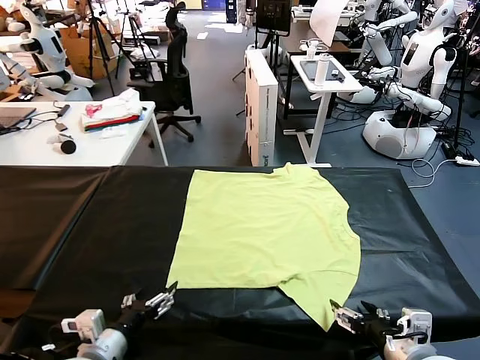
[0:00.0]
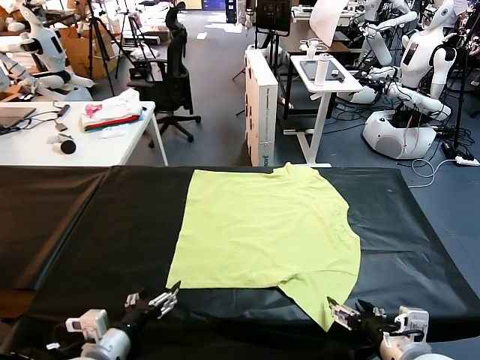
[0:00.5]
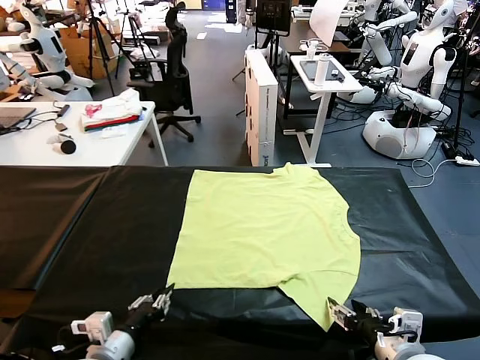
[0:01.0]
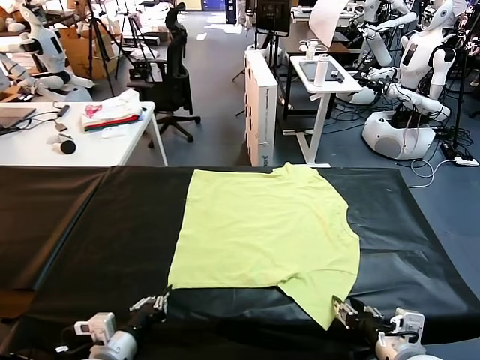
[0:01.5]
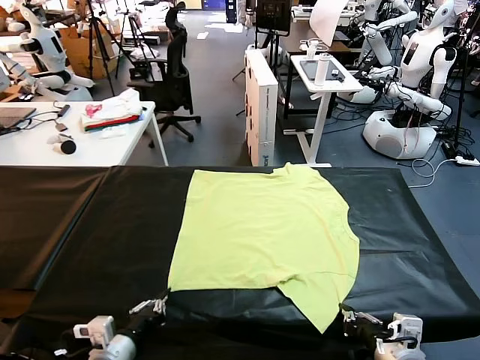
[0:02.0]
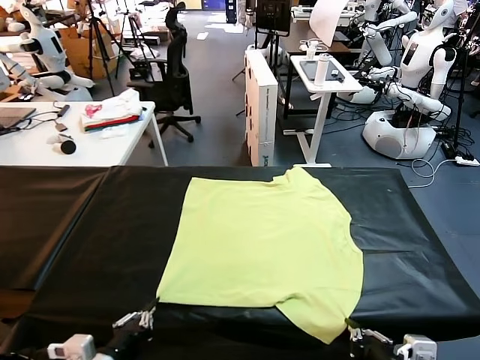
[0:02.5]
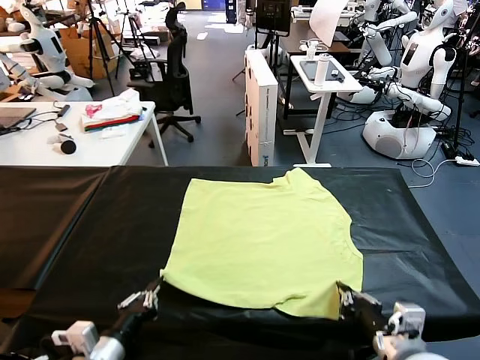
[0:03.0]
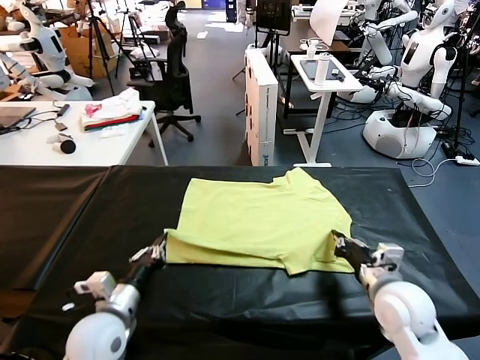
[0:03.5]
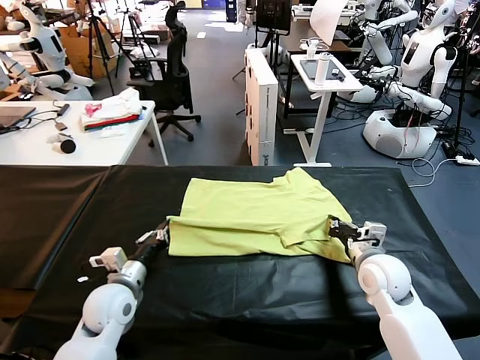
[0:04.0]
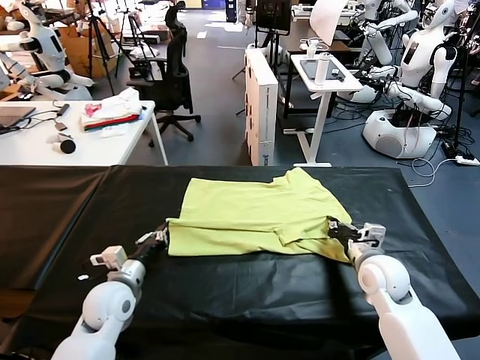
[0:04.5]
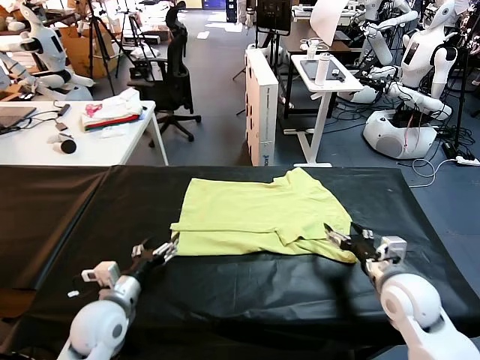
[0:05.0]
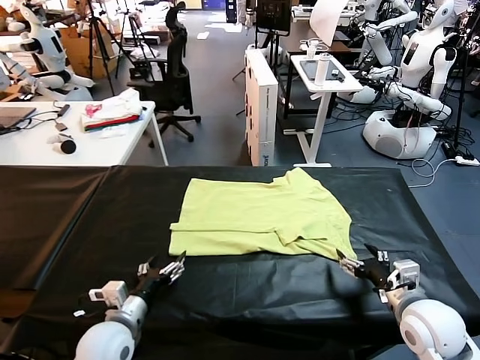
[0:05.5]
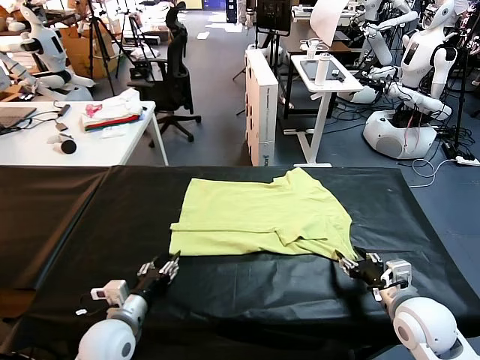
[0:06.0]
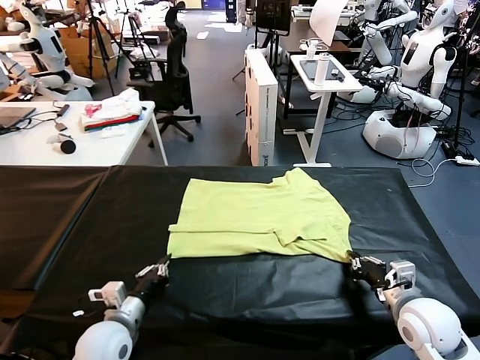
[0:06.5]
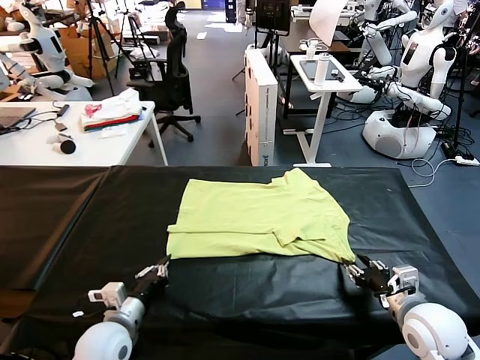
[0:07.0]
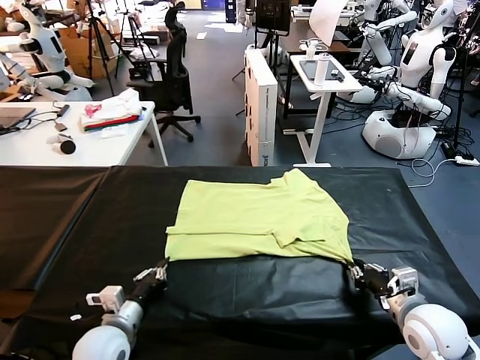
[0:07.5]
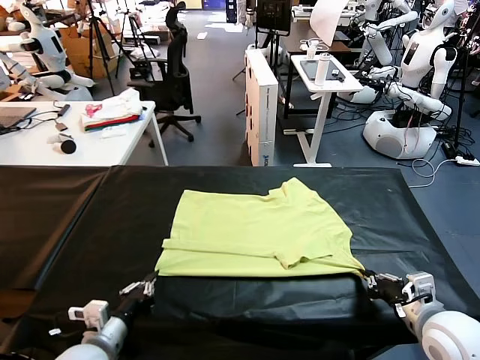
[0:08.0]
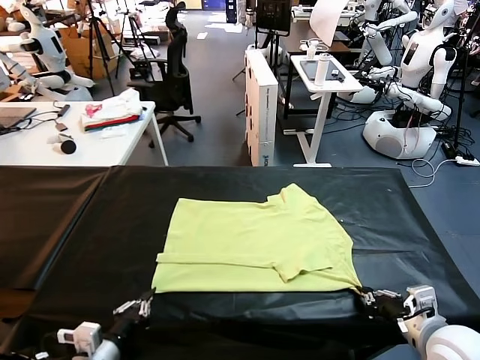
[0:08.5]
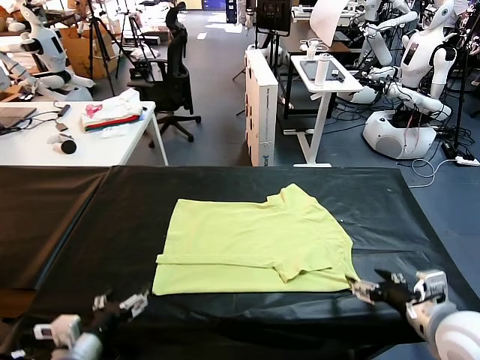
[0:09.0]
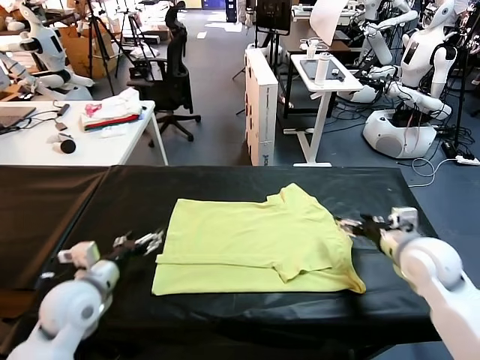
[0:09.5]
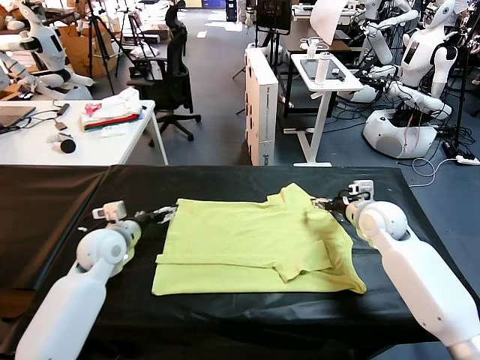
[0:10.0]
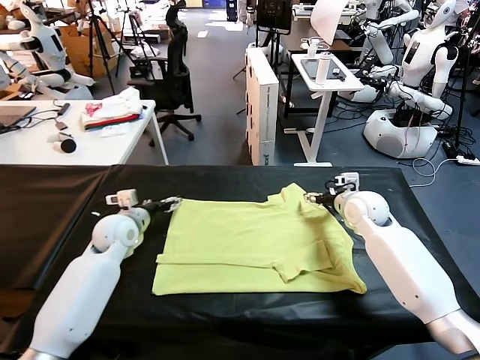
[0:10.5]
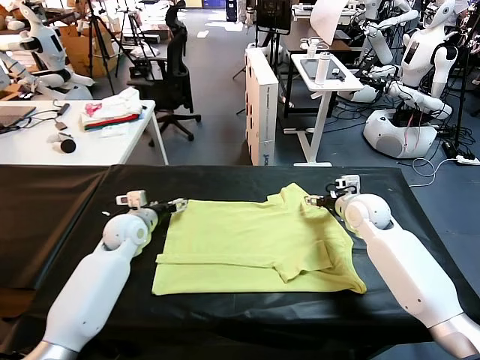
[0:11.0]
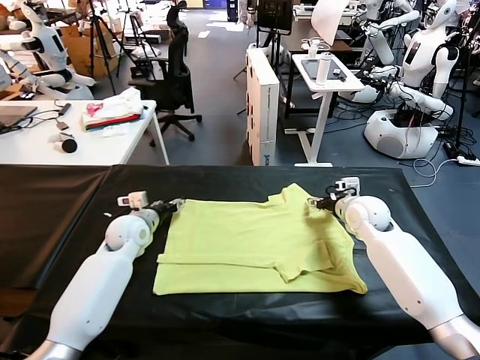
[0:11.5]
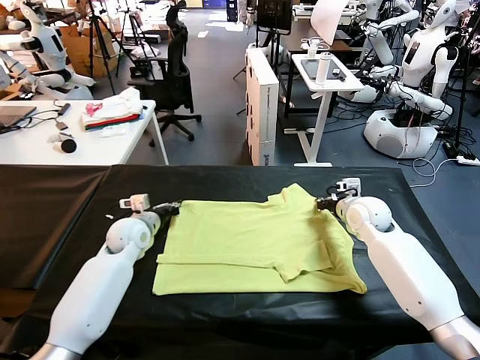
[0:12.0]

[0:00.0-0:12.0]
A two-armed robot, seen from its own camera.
Task of the whole recording: fold and organize the clothes.
Step, 0:00.0 to 0:02.0: use both grippers simultaneously to clamp the lower edge of the clothing fabric.
Step, 0:02.5 to 0:04.5: use both grippers to drag the lower edge of the fabric forward and fold it over the upper edge.
Step, 0:05.0 to 0:08.5: Drag the clothes downward with both gripper.
0:02.0 to 0:04.0: The right gripper goes some 25 cm forward; the left gripper travels forward by about 15 cm.
0:04.0 to 0:06.0: Both grippers move backward, some 10 cm. The right gripper opens, then closes again. Meanwhile the left gripper opens, then closes once more.
0:06.0 to 0:08.0: Both grippers move backward, some 5 cm. The right gripper opens, then closes once more.
0:08.0 to 0:10.0: The two grippers go roughly 25 cm forward. The left gripper opens, while the right gripper opens up.
0:10.0 to 0:12.0: The right gripper closes its fingers; the left gripper goes some 5 cm forward, and closes up.

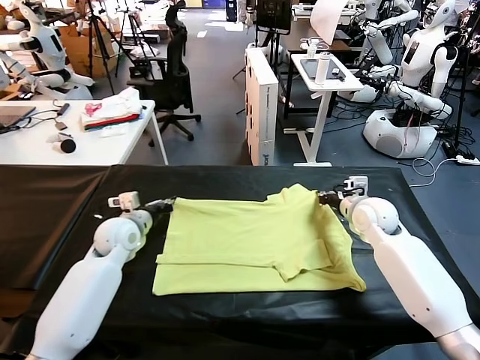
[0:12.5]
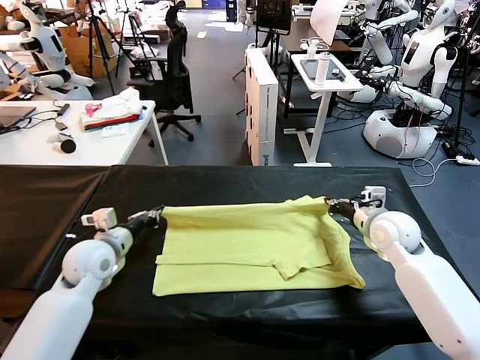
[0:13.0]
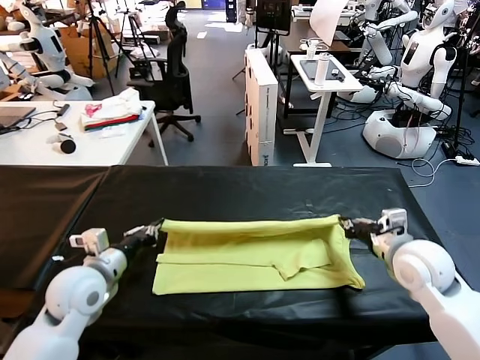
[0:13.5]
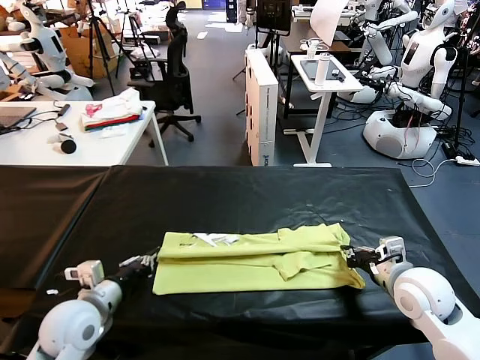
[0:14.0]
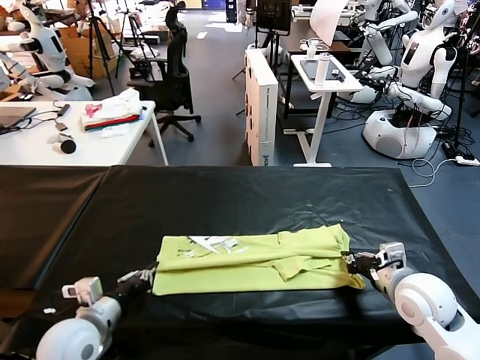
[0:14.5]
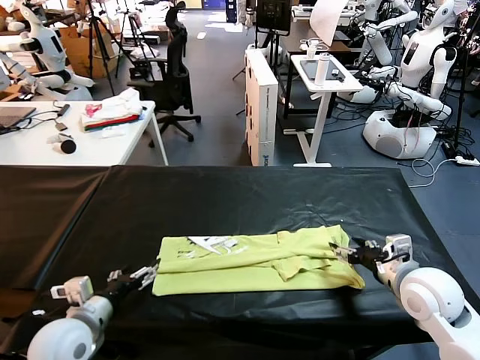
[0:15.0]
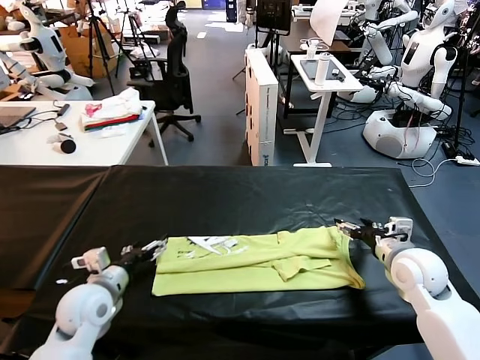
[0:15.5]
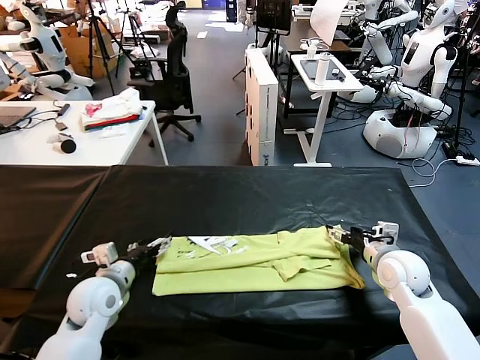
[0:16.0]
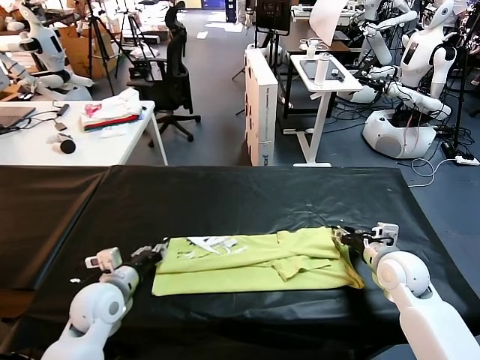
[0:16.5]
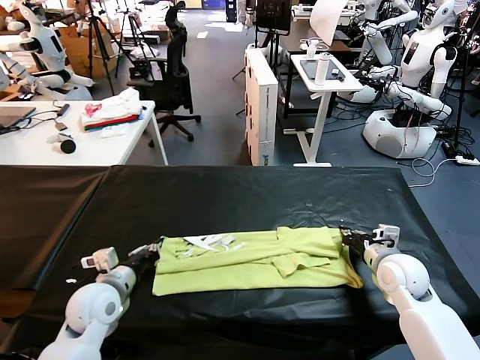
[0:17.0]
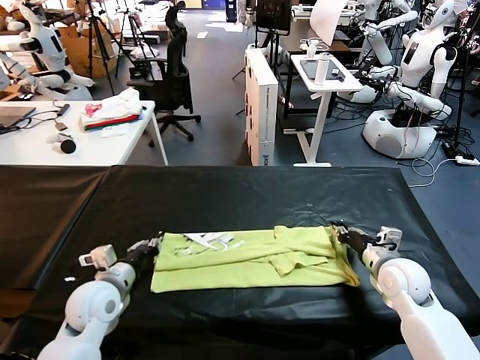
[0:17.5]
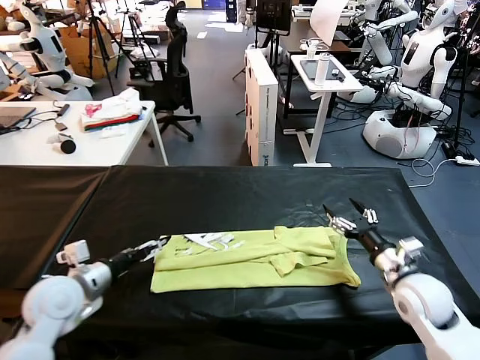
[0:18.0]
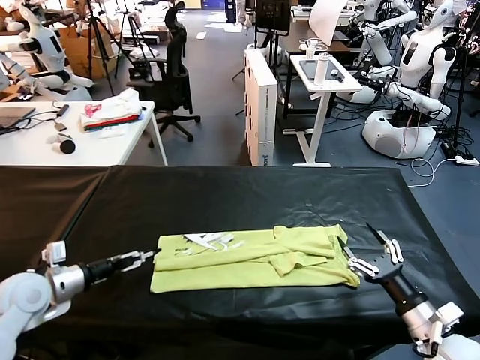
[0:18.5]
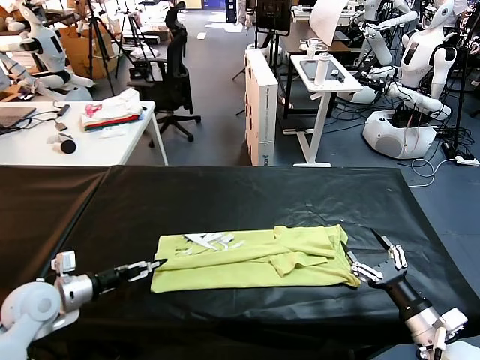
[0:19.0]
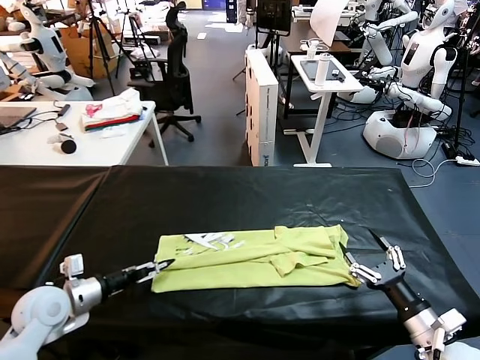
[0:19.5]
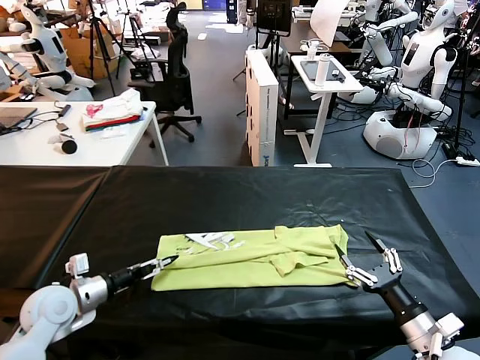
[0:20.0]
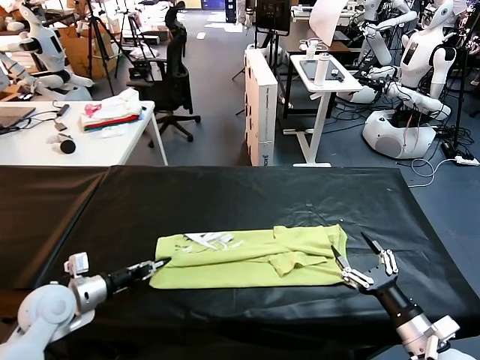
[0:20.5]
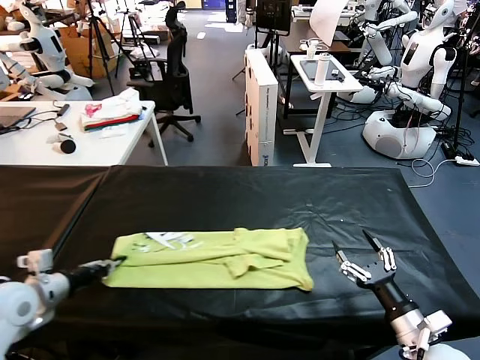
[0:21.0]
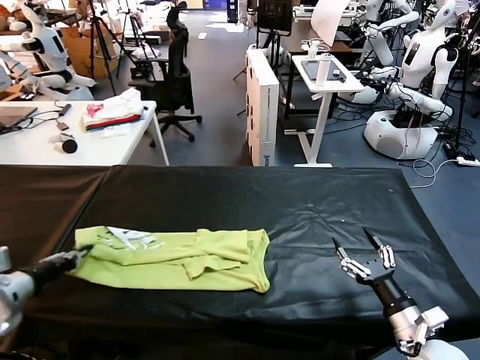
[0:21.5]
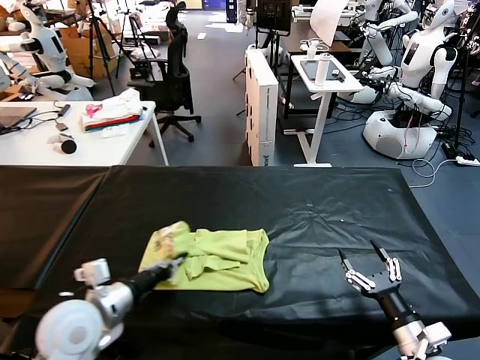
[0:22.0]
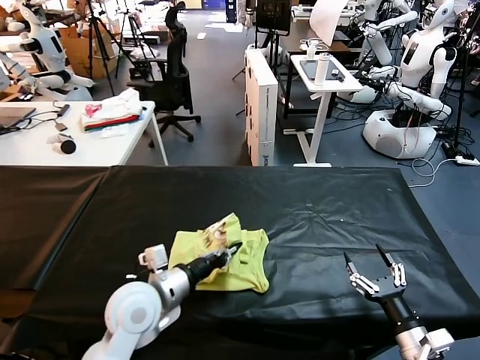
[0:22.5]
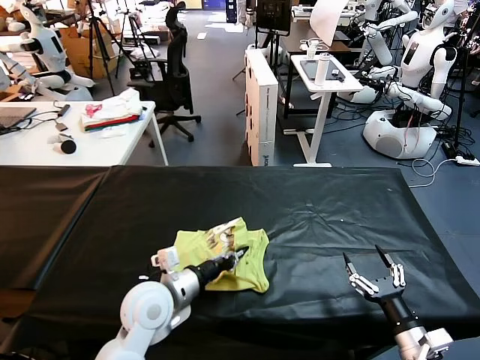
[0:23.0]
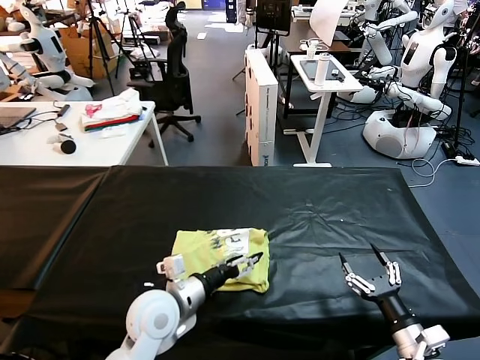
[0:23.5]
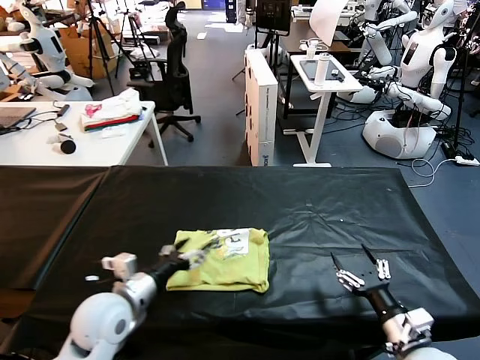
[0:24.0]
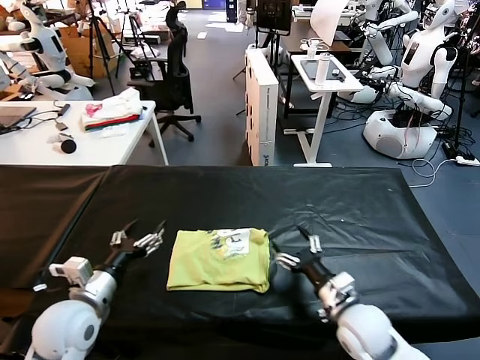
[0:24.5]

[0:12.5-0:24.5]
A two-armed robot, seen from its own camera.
Task of the whole recording: fold and organize the clothes.
Step, 0:12.5 to 0:15.0: use both grippers to drag the upper edge of the fabric backward and fold it over the lower edge.
Step, 0:15.5 to 0:20.0: use the left gripper to clamp the left edge of the fabric.
Step, 0:20.5 to 0:23.5: use the left gripper to drag the left edge of the fabric to the left and folds it over the right edge.
0:12.5 to 0:14.5: The grippers both shift backward by roughly 20 cm.
0:14.5 to 0:16.5: Both grippers travel together forward, about 10 cm. The right gripper opens, then closes once more, while the left gripper opens, then closes again.
0:16.5 to 0:18.5: The left gripper is displaced to the left and upward by approximately 15 cm, and opens up. Meanwhile the right gripper moves backward, approximately 15 cm, and opens.
0:18.5 to 0:20.5: The left gripper ends up about 5 cm from where it was, and closes.
0:20.5 to 0:22.5: The left gripper travels to the right by about 20 cm.
0:22.5 to 0:24.5: The left gripper shifts approximately 10 cm to the left, and opens up. The right gripper shifts roughly 15 cm to the left and forward.

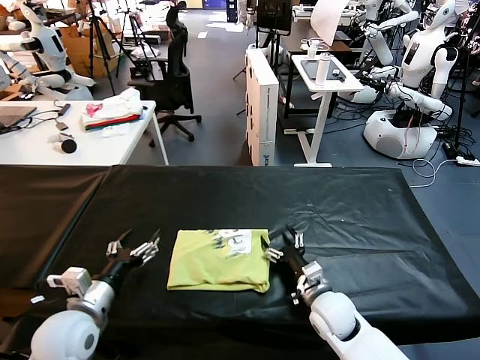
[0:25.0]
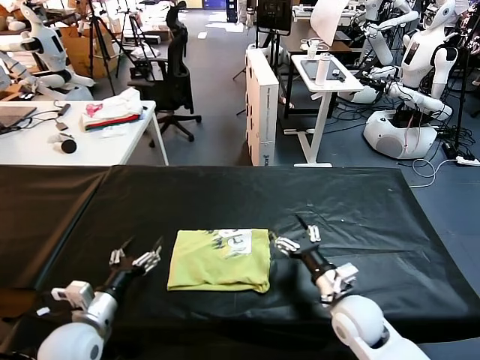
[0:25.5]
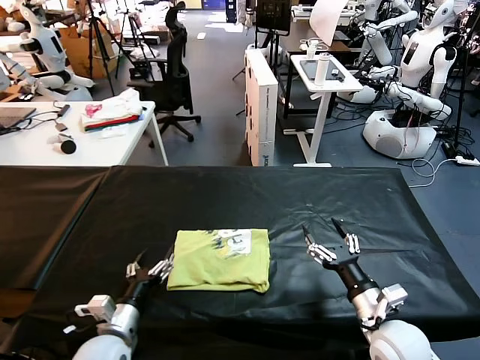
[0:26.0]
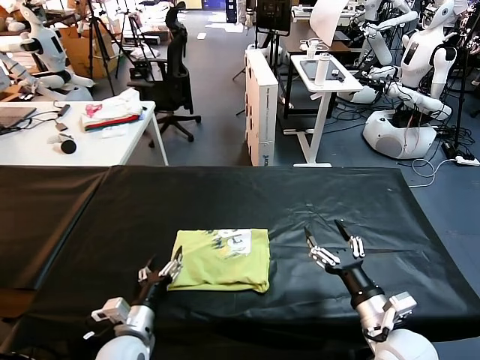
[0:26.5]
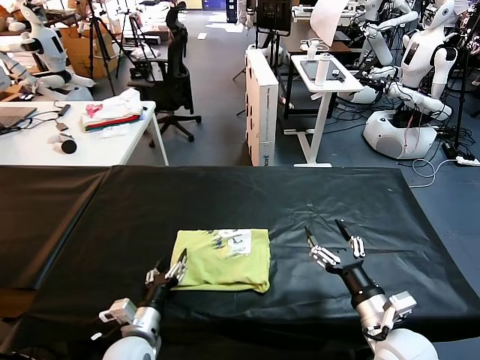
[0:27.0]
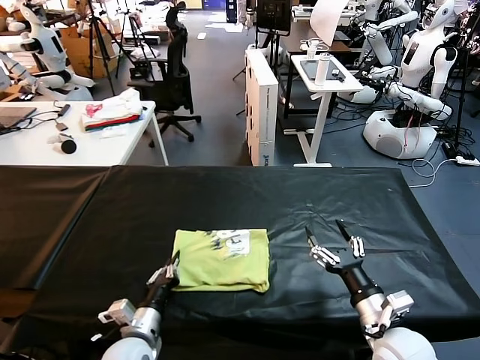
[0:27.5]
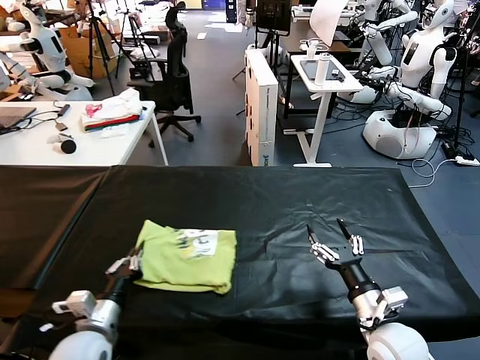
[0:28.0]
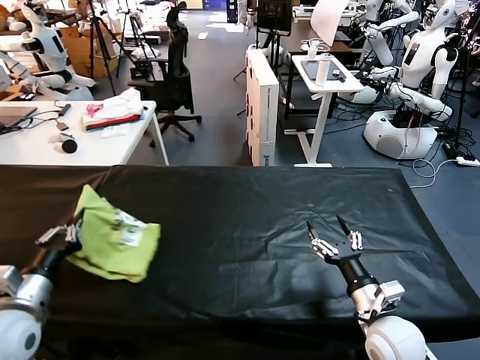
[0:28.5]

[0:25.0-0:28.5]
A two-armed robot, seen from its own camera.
Task of the whole recording: fold and organize the clothes.
0:25.0 to 0:27.0: The right gripper heads backward, upward and to the right, covering about 15 cm, while the left gripper is displaced downward and to the right by roughly 15 cm.
0:27.0 to 0:28.5: The left gripper moves to the left and upward, about 20 cm, and closes up.
